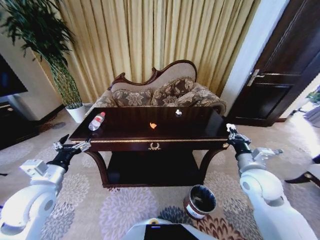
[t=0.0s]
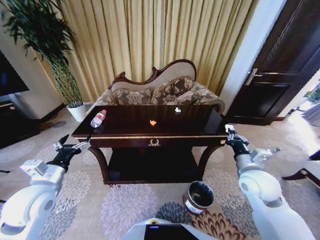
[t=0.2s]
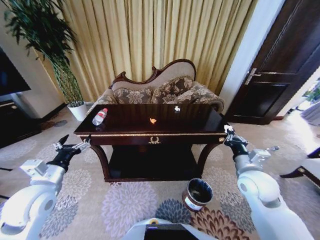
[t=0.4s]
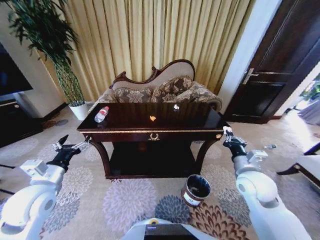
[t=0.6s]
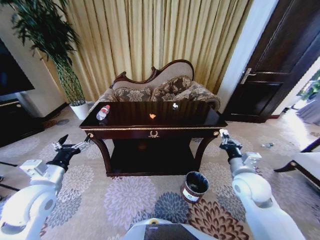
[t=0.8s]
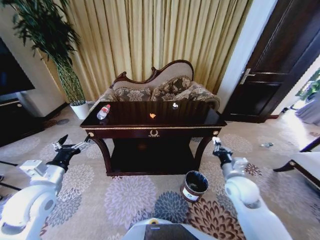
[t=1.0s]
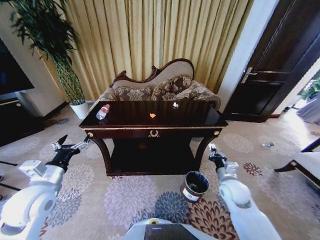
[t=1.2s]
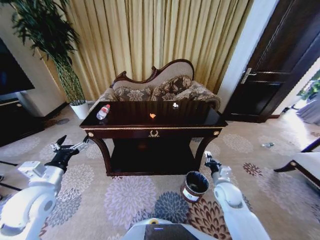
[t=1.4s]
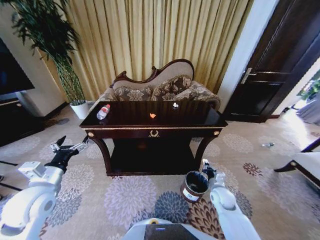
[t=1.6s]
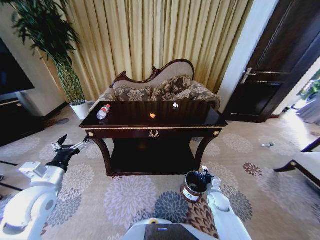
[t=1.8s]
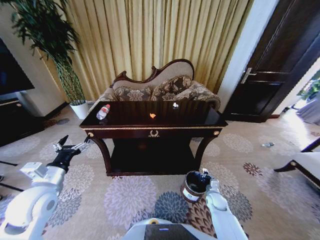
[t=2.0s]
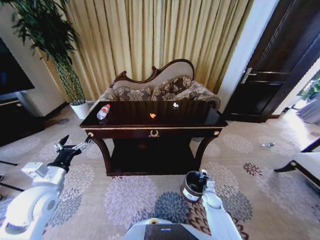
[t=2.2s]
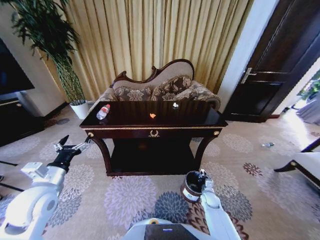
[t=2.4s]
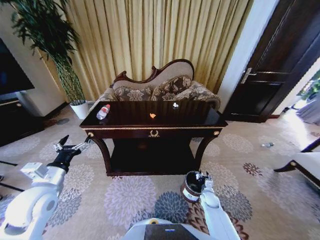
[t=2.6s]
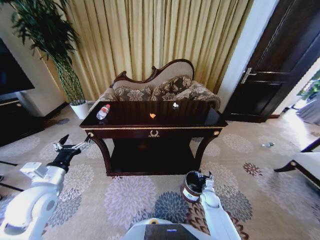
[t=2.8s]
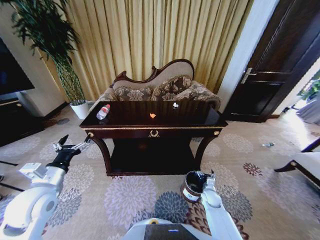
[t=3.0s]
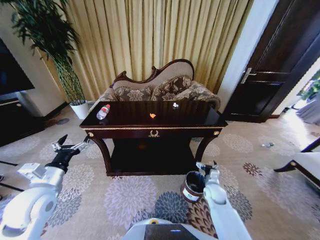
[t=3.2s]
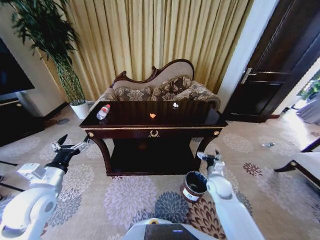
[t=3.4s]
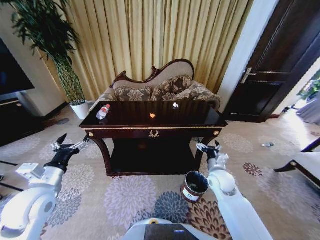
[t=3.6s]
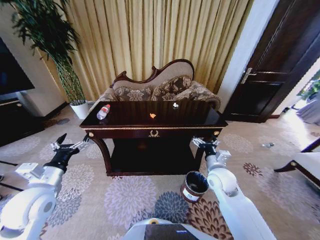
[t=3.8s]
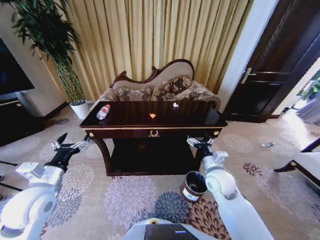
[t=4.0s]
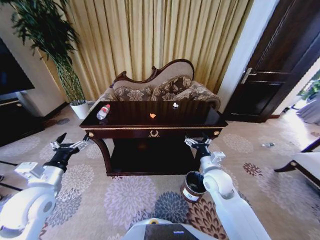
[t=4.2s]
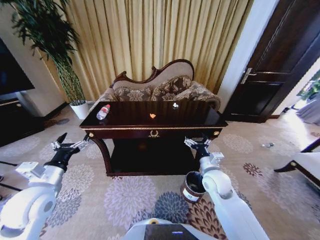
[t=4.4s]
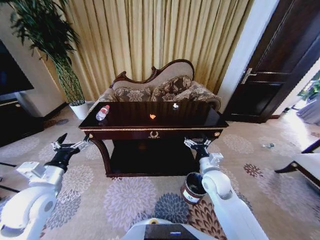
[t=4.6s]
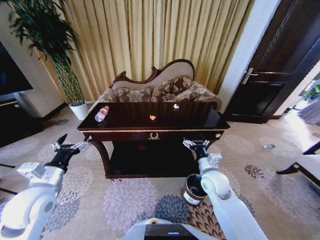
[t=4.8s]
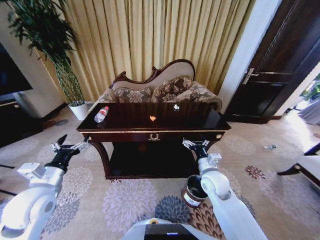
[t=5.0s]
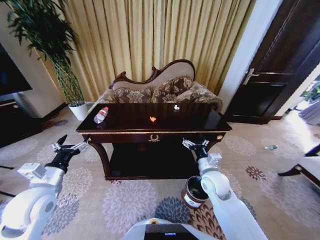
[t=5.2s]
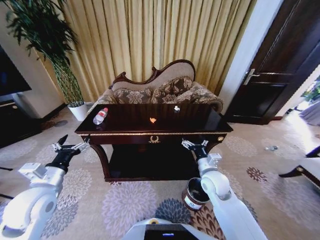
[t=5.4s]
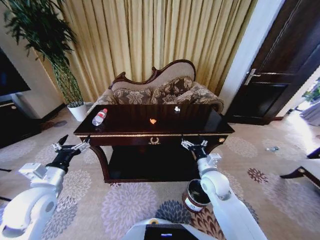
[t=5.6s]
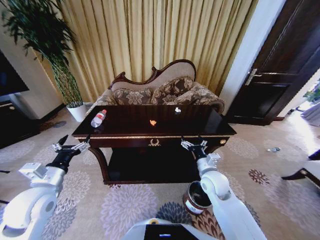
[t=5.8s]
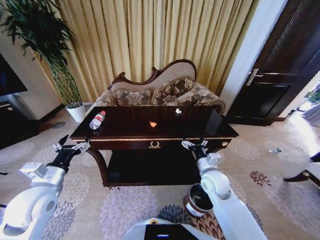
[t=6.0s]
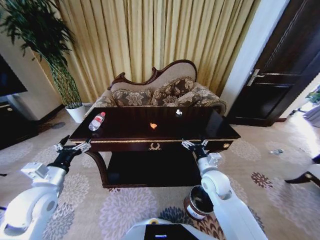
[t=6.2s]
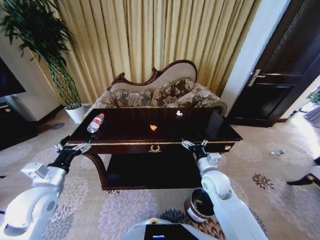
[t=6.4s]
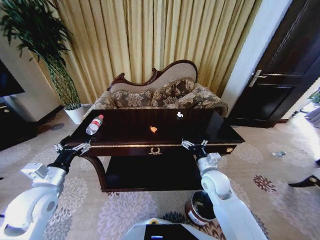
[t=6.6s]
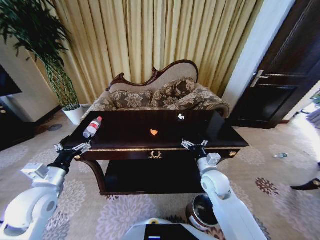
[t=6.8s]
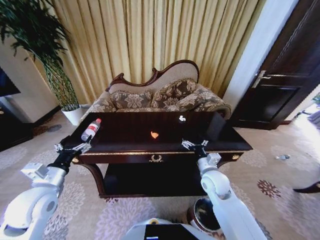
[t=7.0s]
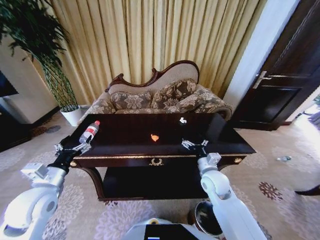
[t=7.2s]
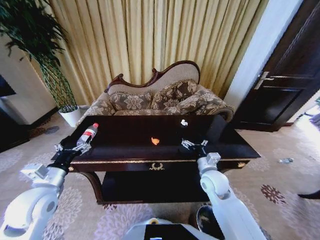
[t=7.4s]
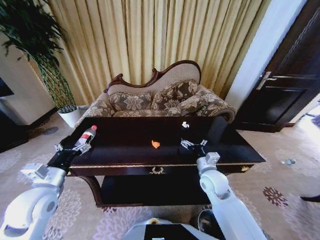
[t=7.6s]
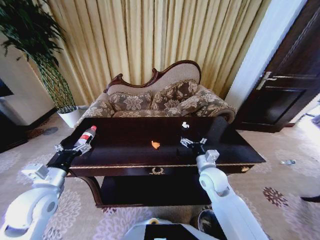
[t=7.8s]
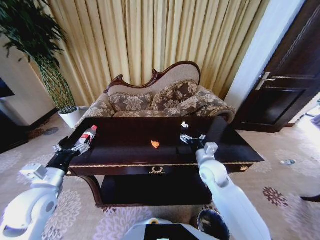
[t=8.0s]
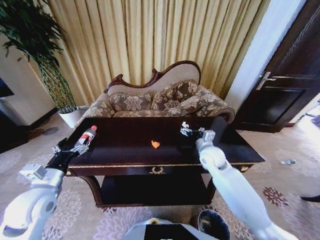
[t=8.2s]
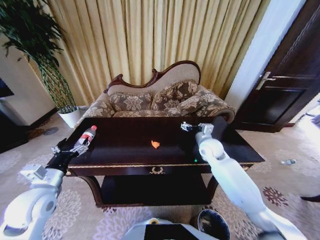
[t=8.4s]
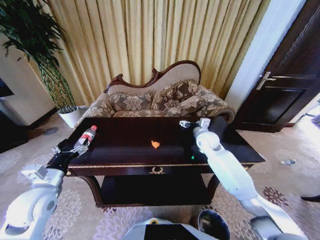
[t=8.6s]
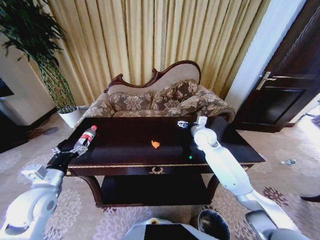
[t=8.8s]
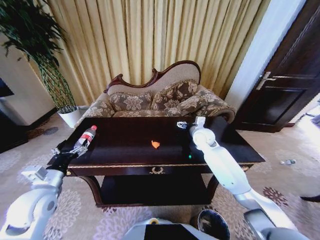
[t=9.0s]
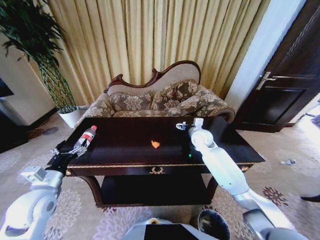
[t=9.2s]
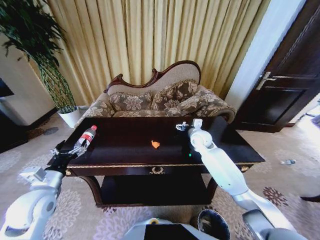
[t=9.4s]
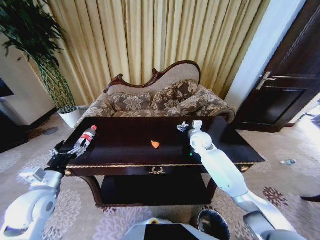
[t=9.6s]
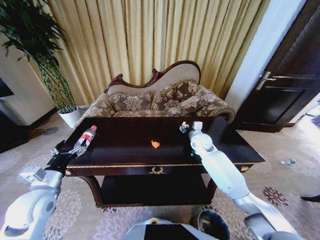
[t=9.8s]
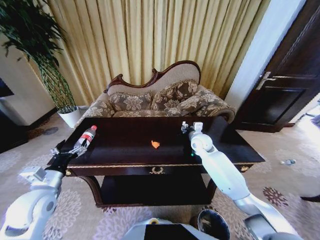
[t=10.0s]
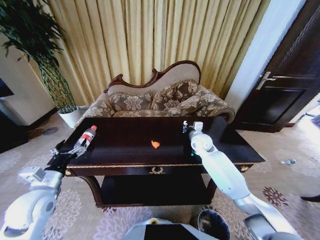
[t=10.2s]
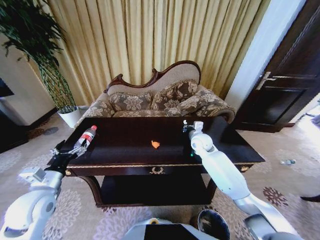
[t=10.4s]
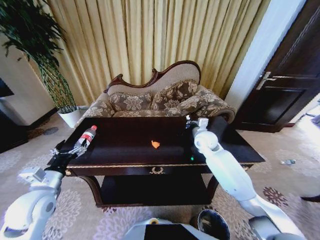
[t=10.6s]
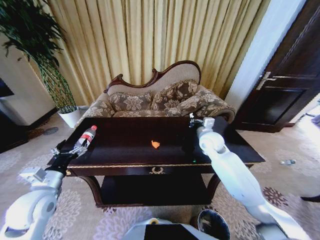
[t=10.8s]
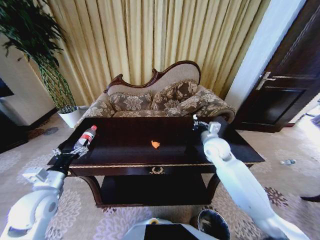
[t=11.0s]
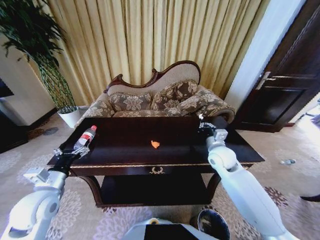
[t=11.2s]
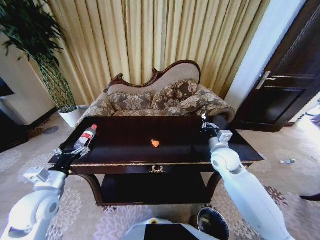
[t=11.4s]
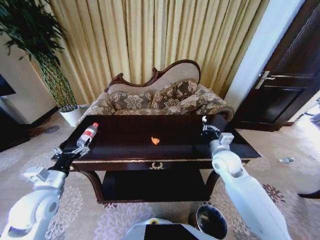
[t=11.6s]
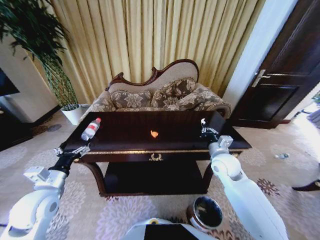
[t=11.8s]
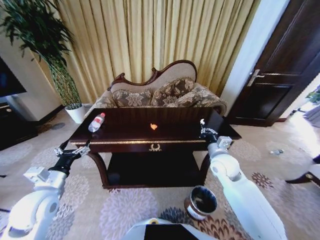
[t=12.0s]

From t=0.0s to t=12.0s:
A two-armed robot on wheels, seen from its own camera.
Task of the whole recording: Move to the front of the table and place the trash on the table into the trash bin.
From t=0.0s to t=1.6s: The right gripper heads downward, covering roughly 25 cm.
From t=1.6s to t=3.0s: The right gripper heads downward, covering about 10 cm, and opens.
From t=3.0s to t=4.4s: The right gripper is displaced upward by some 25 cm.
From t=7.6s to t=9.0s: The right gripper shifts approximately 20 cm forward.
From t=9.0s to t=10.4s: The right gripper closes its fingers.
From t=10.4s to t=12.0s: The right gripper shifts some 15 cm backward.

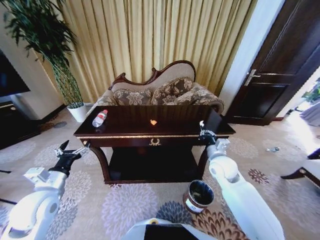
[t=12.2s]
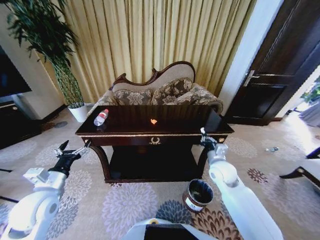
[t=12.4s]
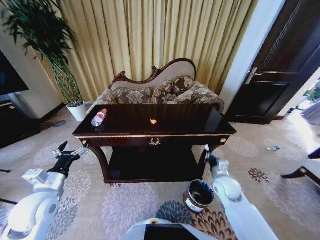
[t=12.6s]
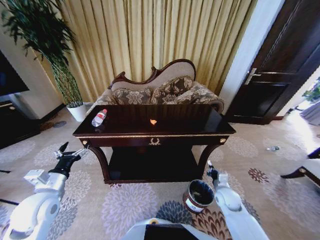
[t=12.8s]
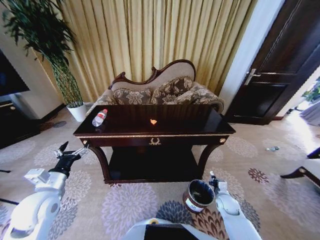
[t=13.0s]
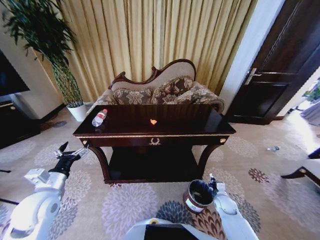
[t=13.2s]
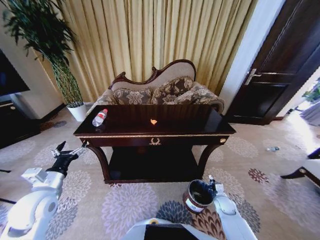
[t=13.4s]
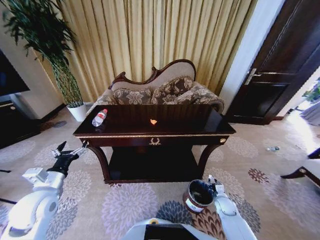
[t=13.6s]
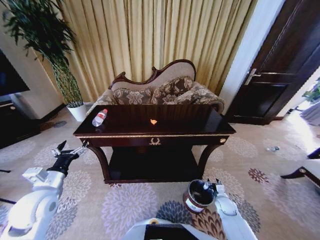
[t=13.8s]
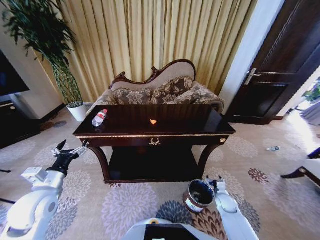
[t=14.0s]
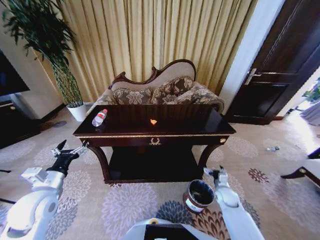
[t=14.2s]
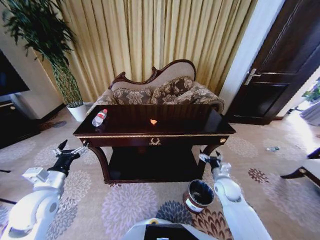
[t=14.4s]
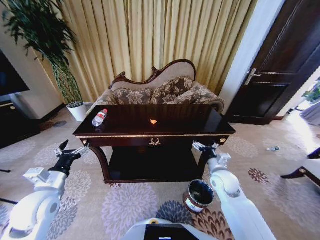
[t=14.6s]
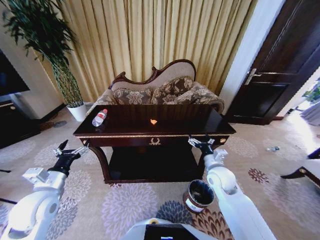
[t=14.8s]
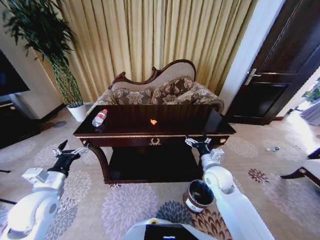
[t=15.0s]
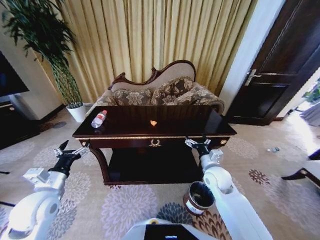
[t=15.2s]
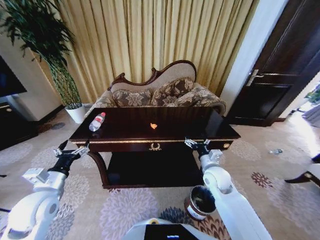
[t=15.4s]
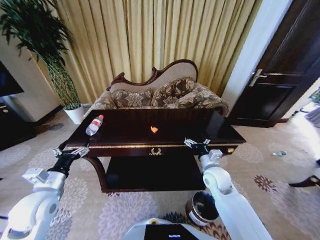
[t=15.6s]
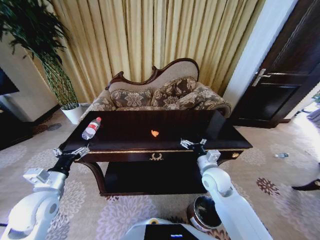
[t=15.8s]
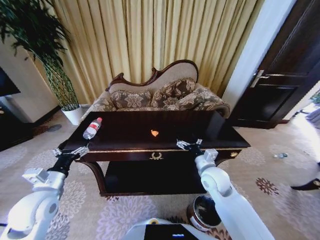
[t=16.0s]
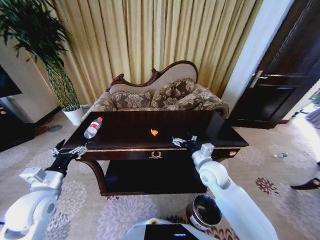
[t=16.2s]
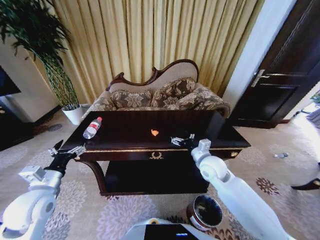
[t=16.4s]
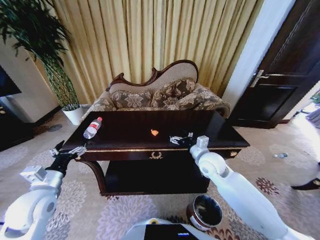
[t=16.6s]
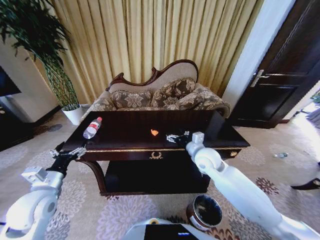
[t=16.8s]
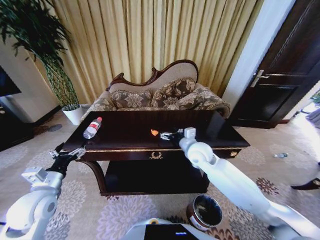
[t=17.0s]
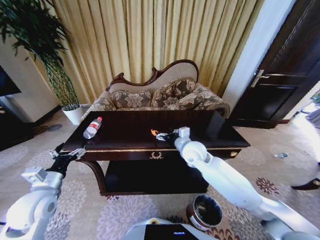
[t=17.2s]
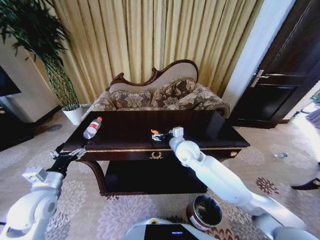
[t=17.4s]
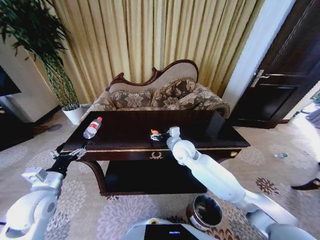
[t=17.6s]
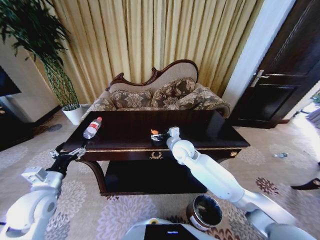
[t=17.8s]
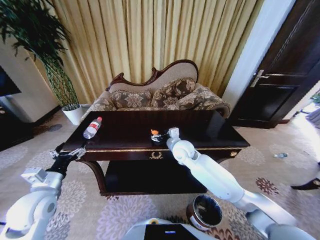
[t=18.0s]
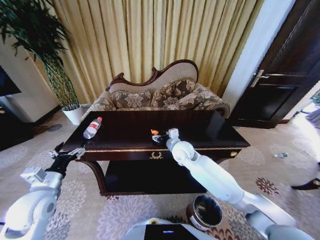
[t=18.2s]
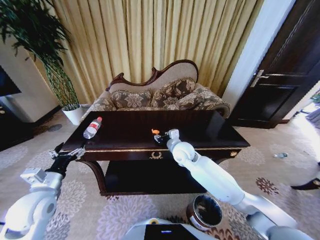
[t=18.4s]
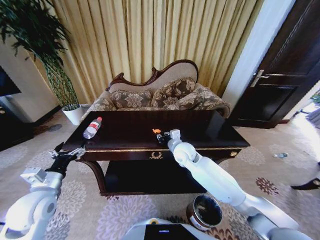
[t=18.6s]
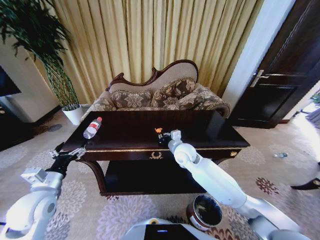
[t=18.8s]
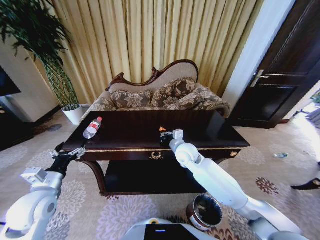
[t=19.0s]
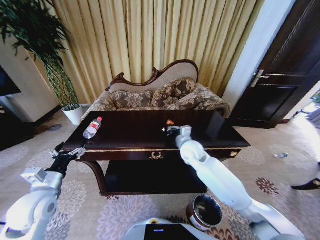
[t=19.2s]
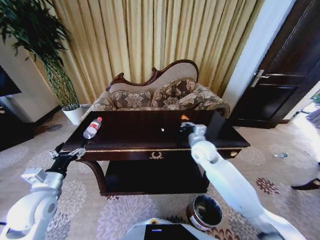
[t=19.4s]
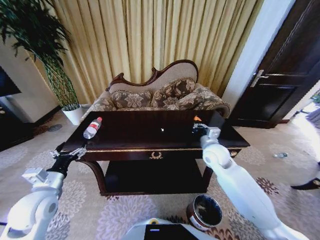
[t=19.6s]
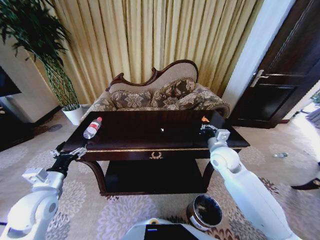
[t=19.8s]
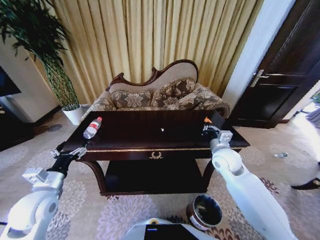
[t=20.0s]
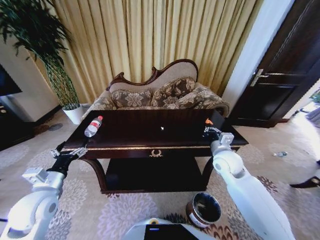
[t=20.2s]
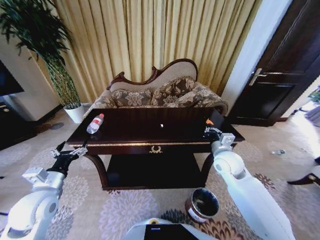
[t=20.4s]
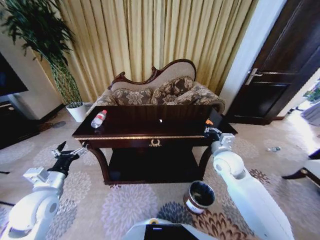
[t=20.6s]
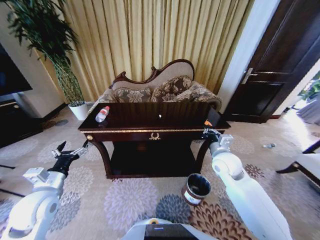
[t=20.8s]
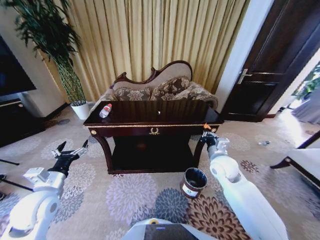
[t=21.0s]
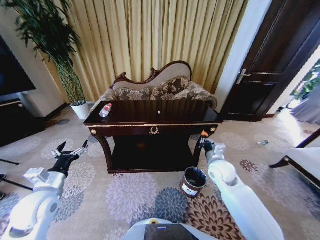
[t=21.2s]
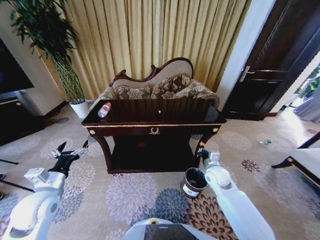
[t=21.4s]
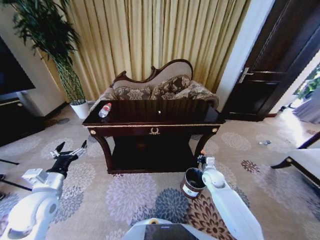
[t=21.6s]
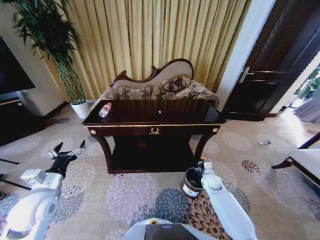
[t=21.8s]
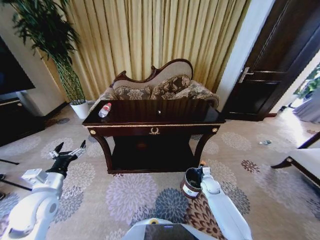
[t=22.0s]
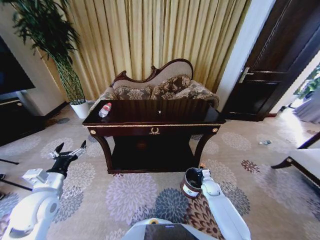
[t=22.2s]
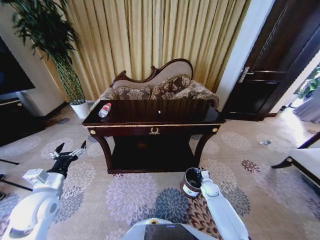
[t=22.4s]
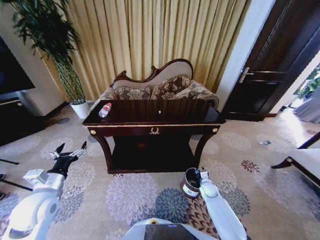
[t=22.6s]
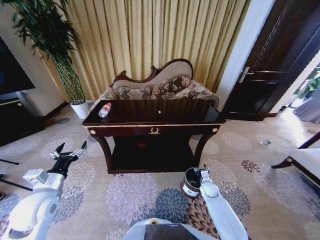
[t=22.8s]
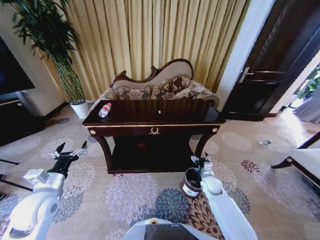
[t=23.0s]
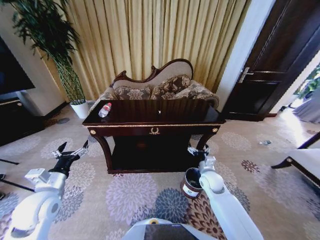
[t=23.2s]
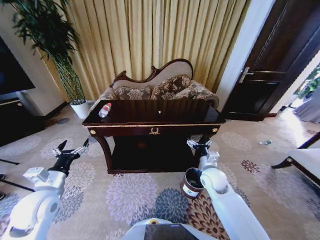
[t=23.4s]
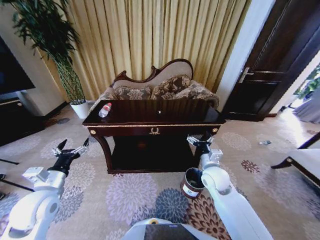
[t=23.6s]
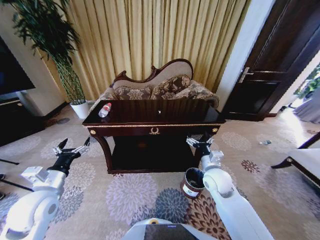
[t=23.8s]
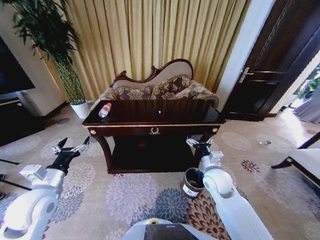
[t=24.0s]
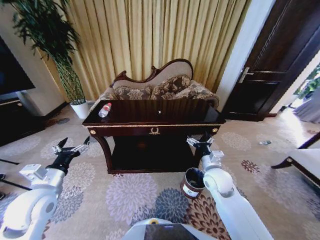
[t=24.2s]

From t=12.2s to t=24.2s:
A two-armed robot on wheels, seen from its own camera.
Task of the whole recording: Move to the front of the table and place the trash on the table into the trash bin.
From t=12.2s to t=13.8s: The right gripper travels downward by roughly 30 cm, and opens its fingers.
From t=13.8s to t=15.2s: The right gripper is displaced upward and to the left by some 25 cm, and opens up.
From t=15.2s to t=16.6s: The right gripper is displaced upward by approximately 5 cm.
From t=16.6s to t=18.2s: The right gripper heads to the left and forward, covering roughly 10 cm.
From t=18.2s to t=19.8s: The right gripper moves to the right, approximately 15 cm, and closes up.
From t=19.8s to t=21.2s: The right gripper travels downward by approximately 5 cm.
From t=21.2s to t=22.6s: The right gripper moves downward, roughly 25 cm, and opens up.
From t=22.6s to t=24.2s: The right gripper goes some 25 cm upward, and opens up.
